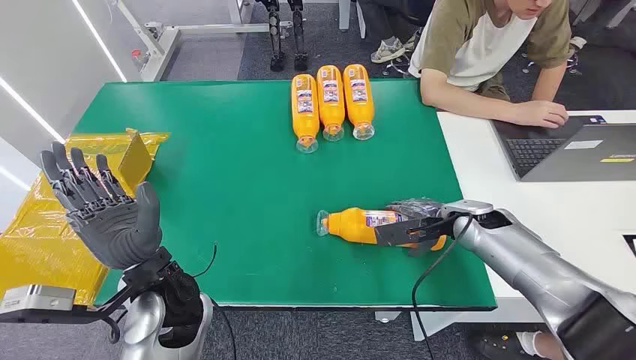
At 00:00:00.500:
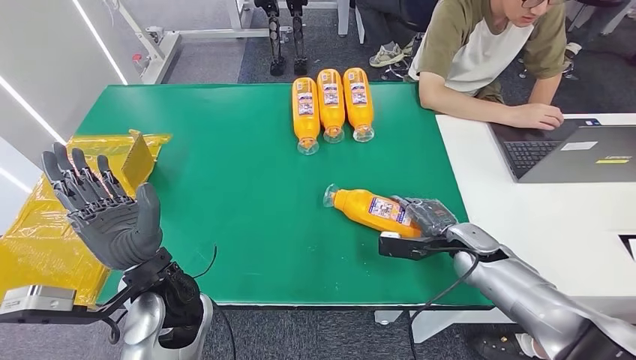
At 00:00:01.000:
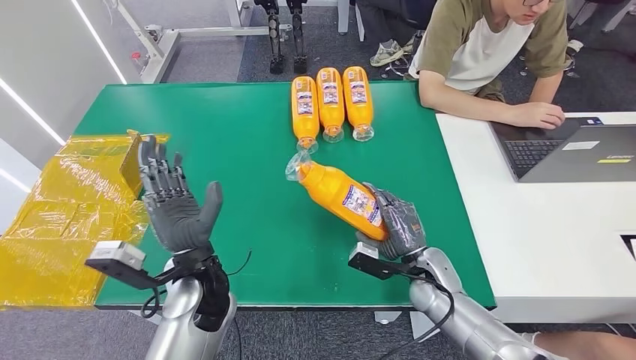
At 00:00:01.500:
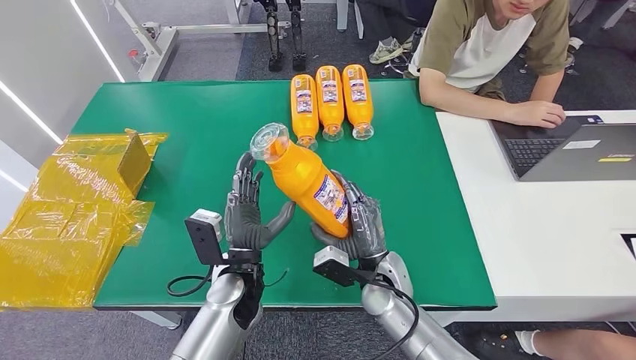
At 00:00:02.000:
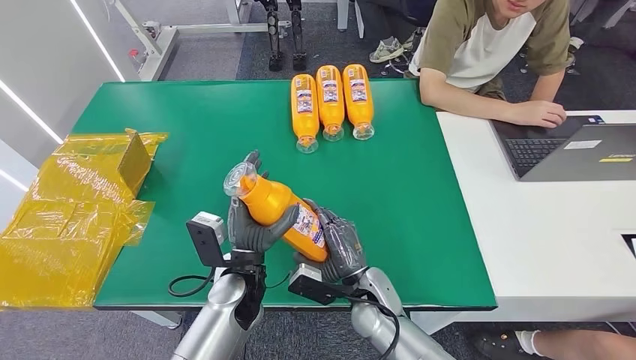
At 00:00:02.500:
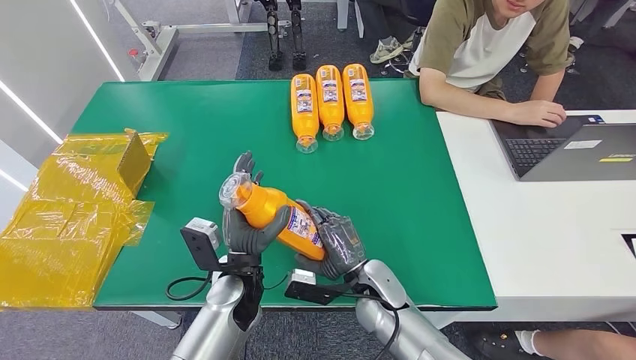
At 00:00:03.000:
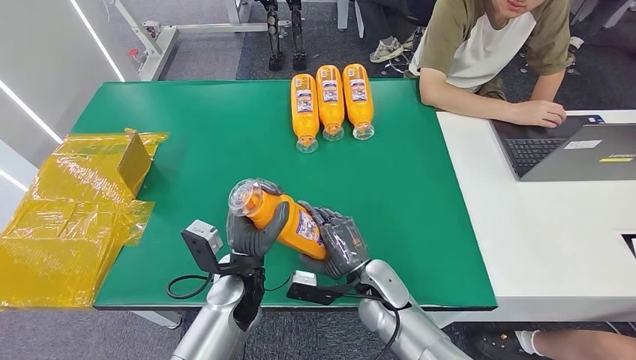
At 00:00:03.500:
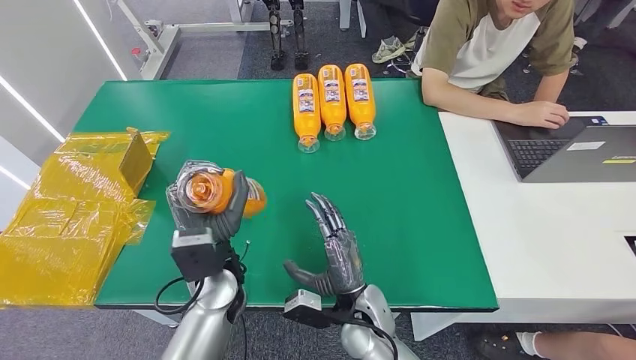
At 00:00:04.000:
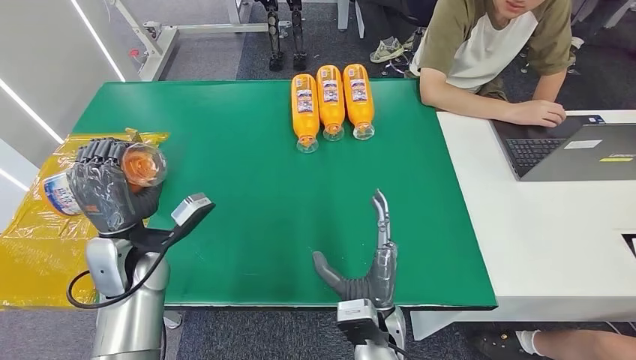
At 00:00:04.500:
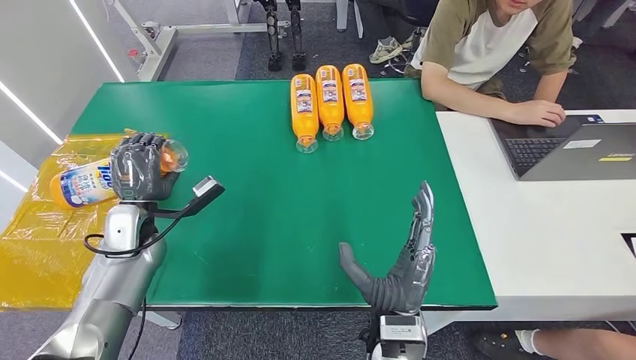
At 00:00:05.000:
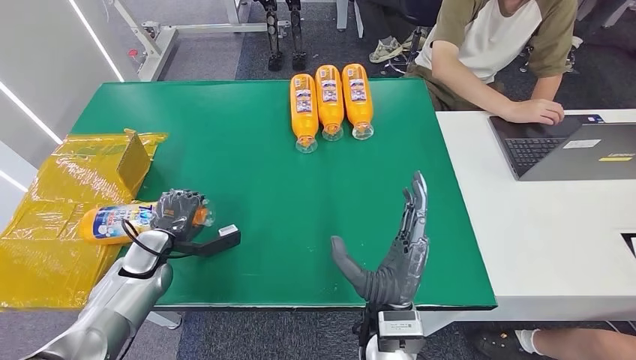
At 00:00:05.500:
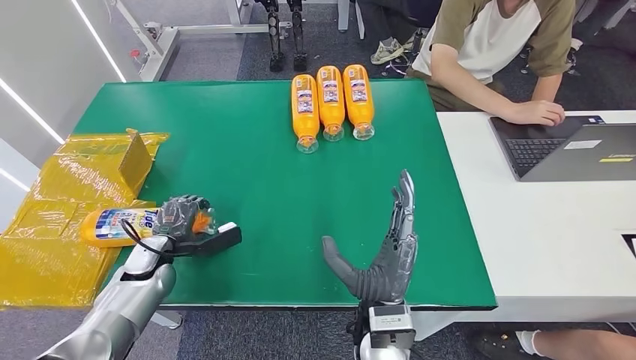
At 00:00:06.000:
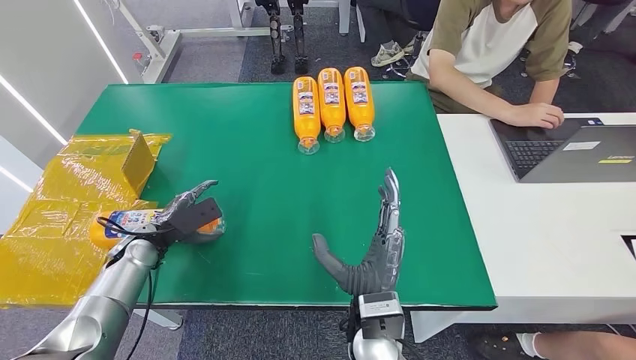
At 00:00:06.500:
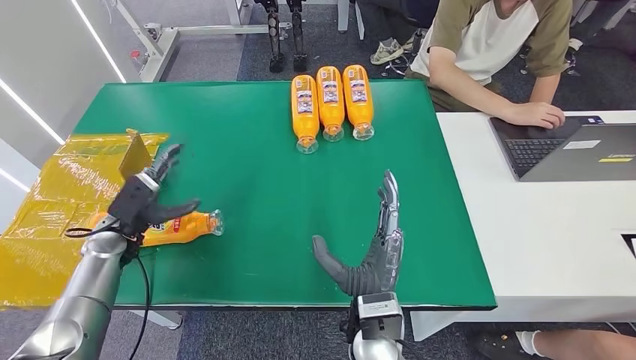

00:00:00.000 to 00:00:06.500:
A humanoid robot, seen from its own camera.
Step, 00:00:00.000 to 00:00:01.500: Pick up the bottle from the table.
Step, 00:00:02.000 to 00:00:06.500: Turn the bottle to the front side.
00:00:02.000 to 00:00:04.500: The right hand heads backward and upward, covering approximately 10 cm, while the left hand shifts roughly 25 cm to the left and forward.
00:00:04.500 to 00:00:06.500: The left hand travels to the left by about 5 cm.

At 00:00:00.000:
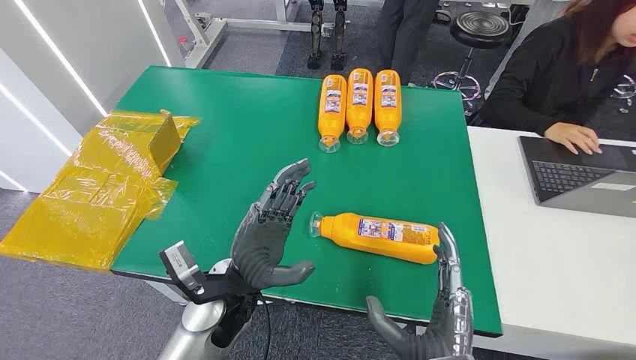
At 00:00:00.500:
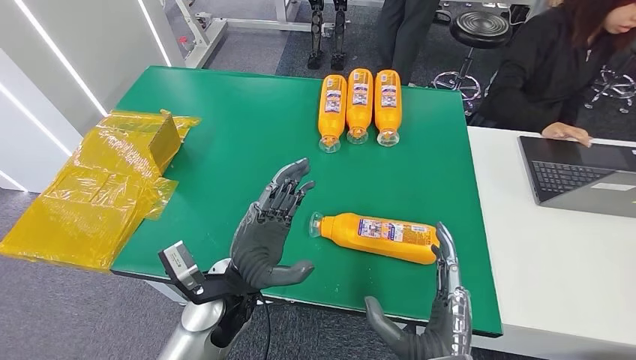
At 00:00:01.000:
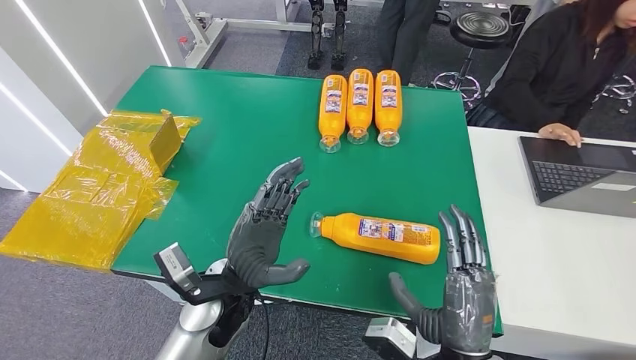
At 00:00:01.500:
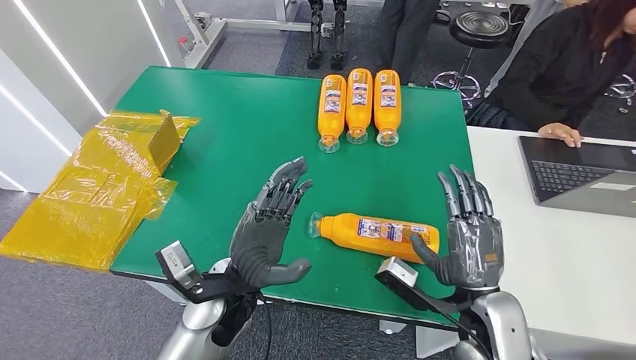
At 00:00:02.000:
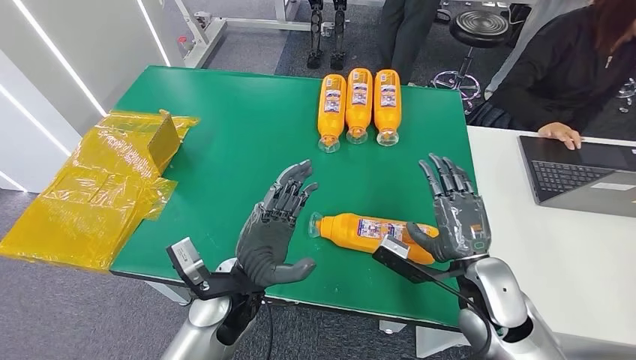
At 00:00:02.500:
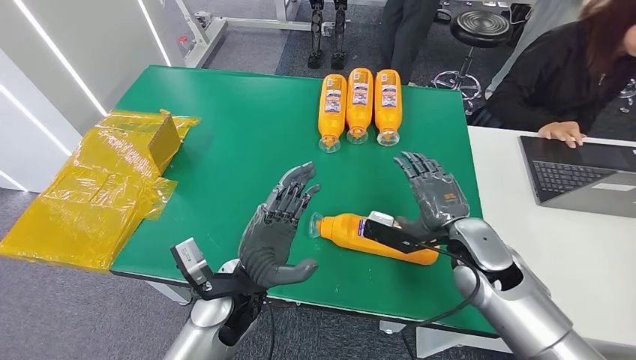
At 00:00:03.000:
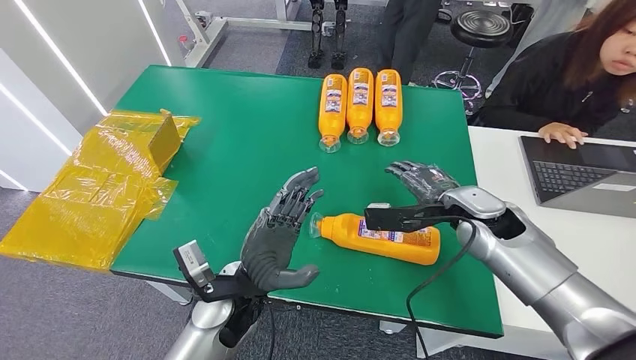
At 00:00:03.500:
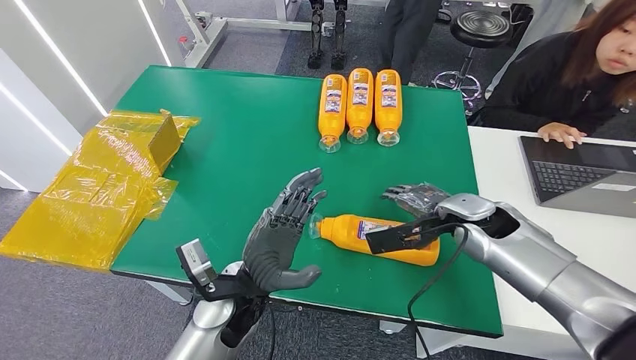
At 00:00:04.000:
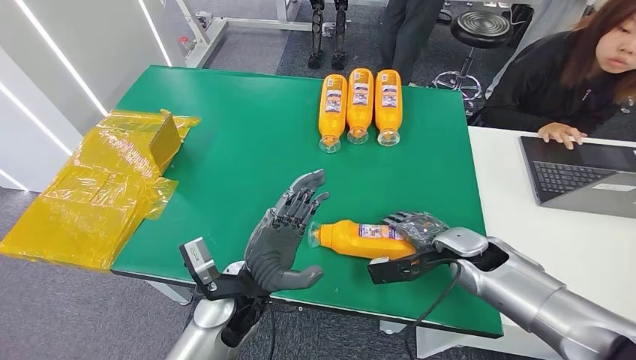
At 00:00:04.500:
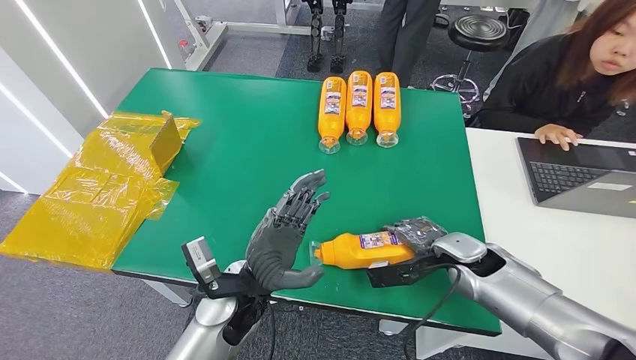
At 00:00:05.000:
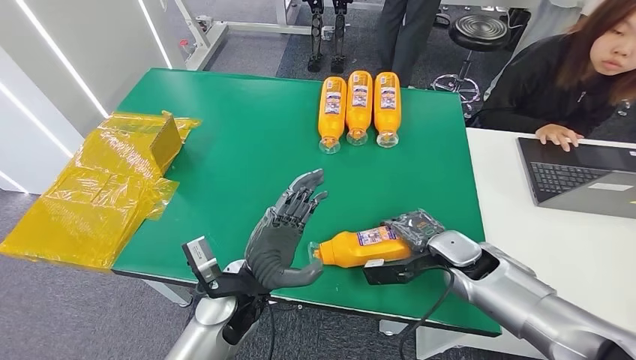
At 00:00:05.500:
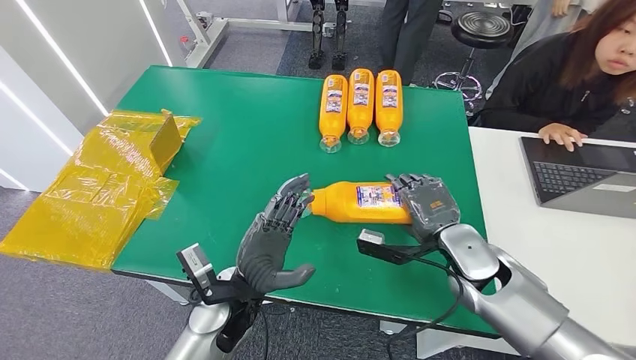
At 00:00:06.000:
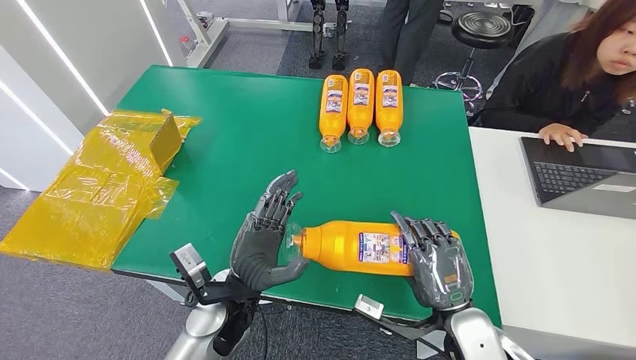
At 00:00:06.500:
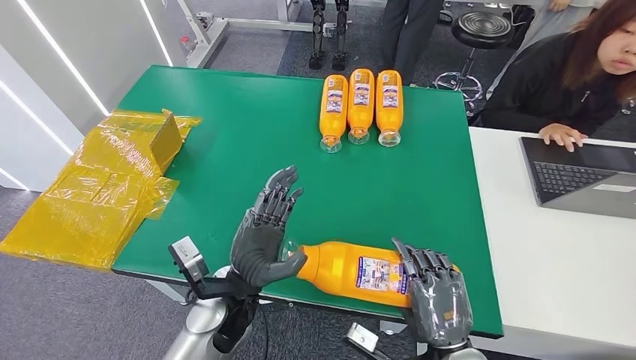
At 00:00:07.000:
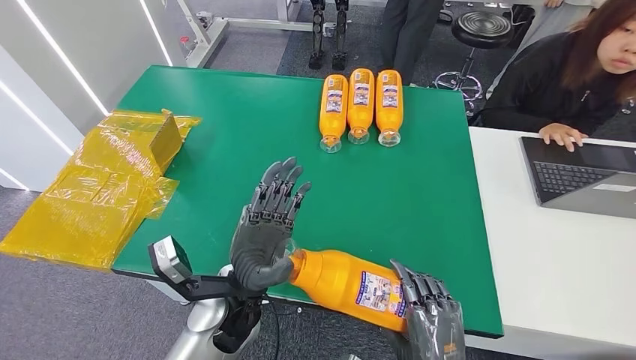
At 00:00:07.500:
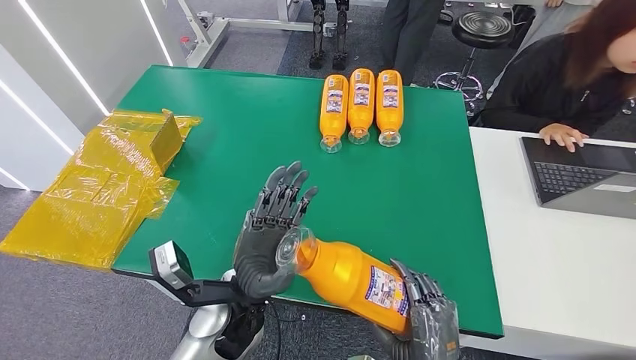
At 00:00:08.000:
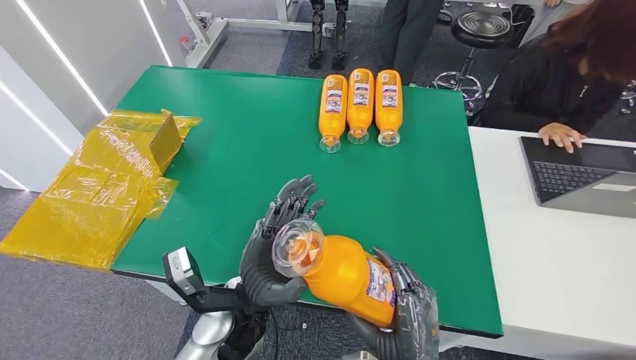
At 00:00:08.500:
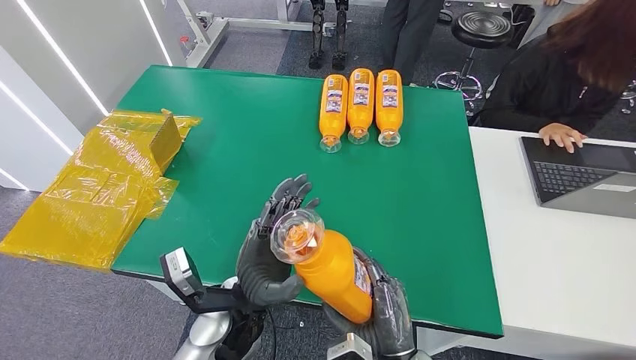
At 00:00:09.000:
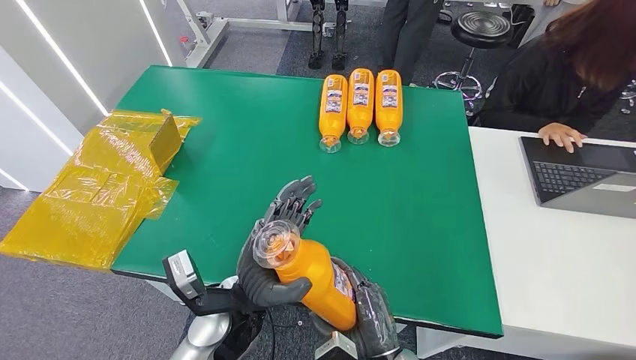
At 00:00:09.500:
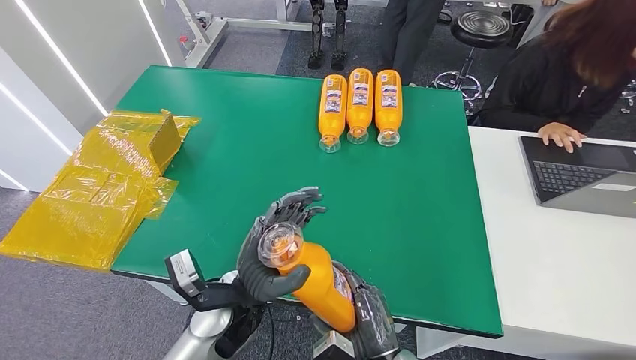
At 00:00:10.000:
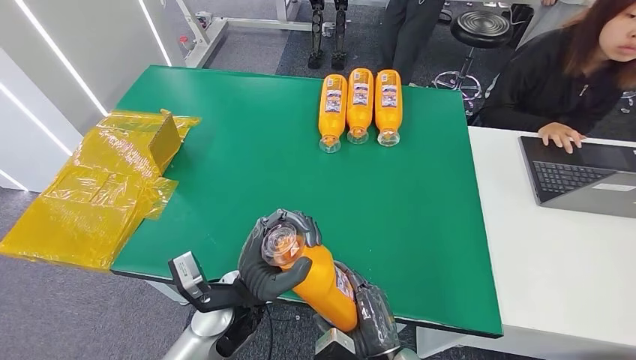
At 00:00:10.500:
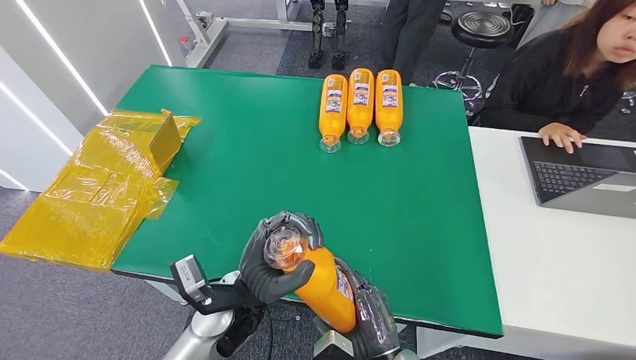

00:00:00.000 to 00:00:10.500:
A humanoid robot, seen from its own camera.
Step, 00:00:00.000 to 00:00:07.000: Pick up the bottle from the table.
00:00:02.000 to 00:00:04.000: The right hand shifts about 10 cm forward.
00:00:04.000 to 00:00:06.500: The right hand shifts approximately 20 cm backward.
00:00:06.500 to 00:00:08.500: The right hand moves to the left, approximately 10 cm.
00:00:08.500 to 00:00:10.500: The hands stay close to where they were, moving slightly.

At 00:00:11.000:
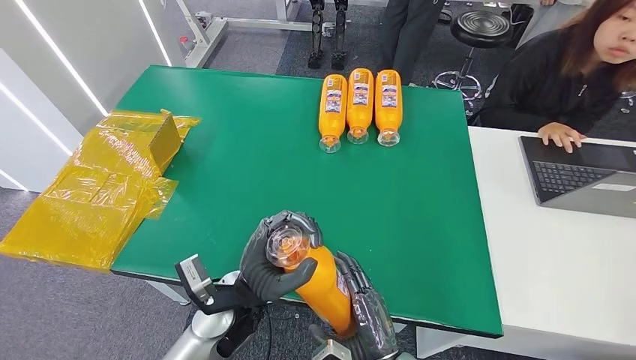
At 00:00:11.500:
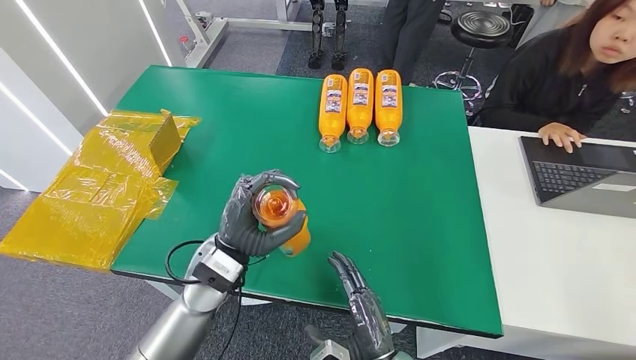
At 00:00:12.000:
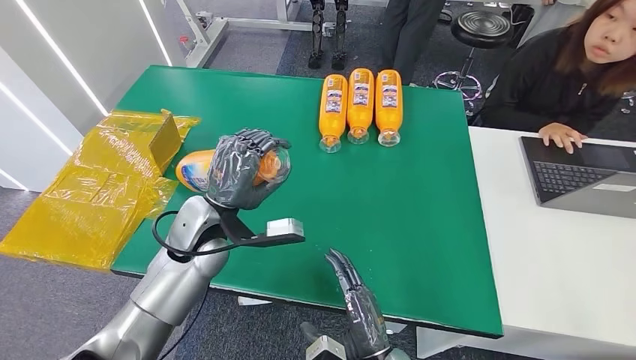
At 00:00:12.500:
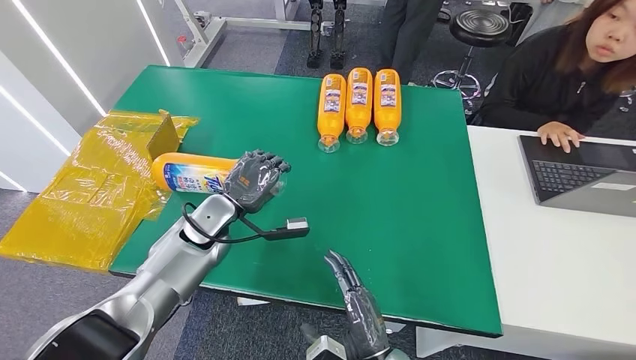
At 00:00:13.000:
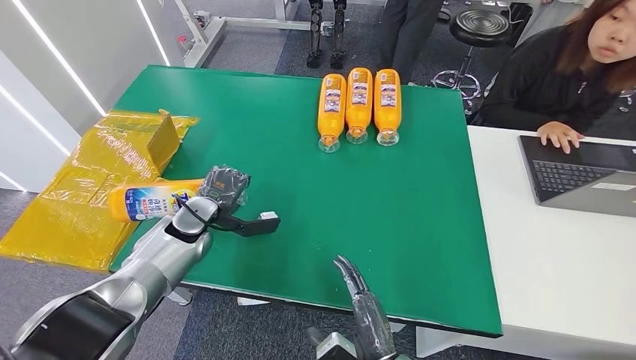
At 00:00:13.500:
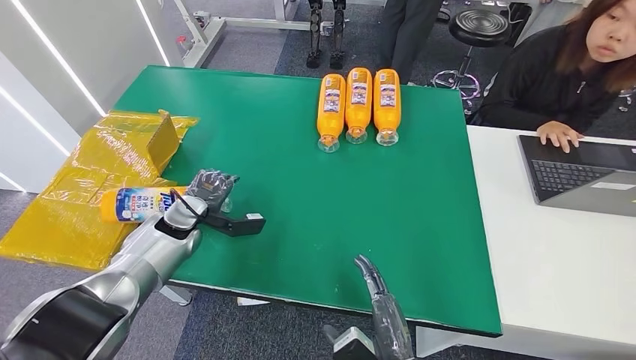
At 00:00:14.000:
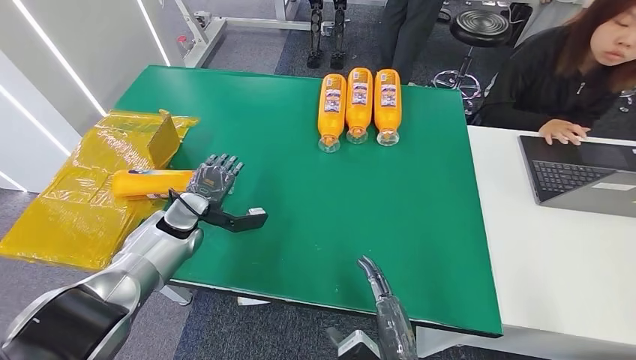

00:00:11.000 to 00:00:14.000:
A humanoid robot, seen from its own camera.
Step, 00:00:11.000 to 00:00:14.000: Turn the bottle to the front side.
00:00:11.000 to 00:00:12.500: The left hand heads forward and to the left, covering roughly 20 cm.
00:00:12.500 to 00:00:14.000: The left hand travels to the left by roughly 10 cm.
